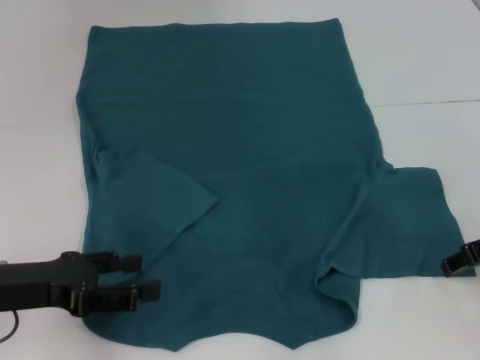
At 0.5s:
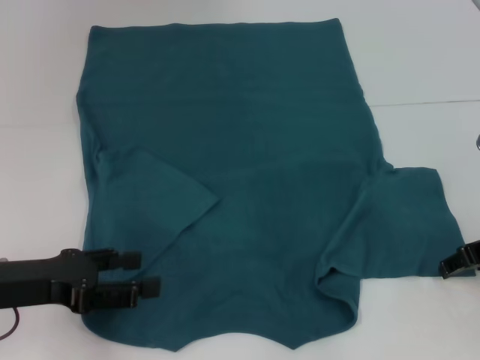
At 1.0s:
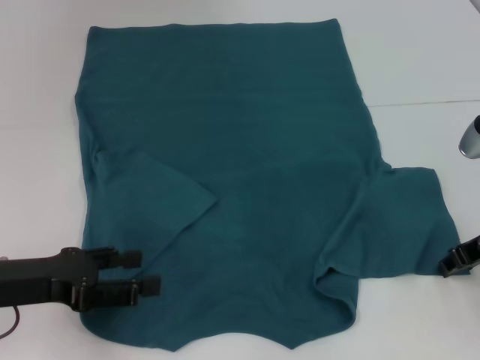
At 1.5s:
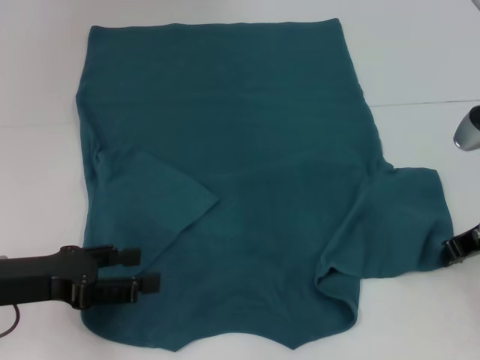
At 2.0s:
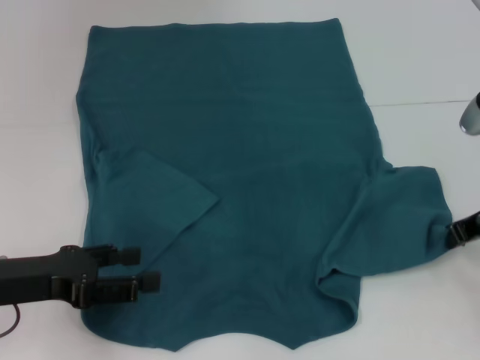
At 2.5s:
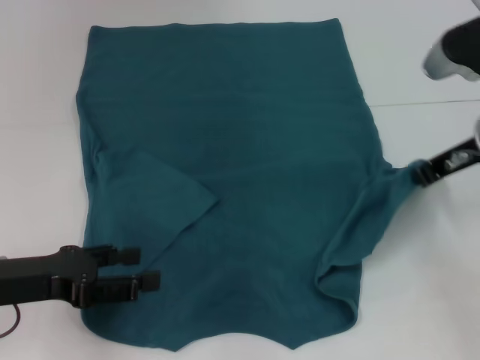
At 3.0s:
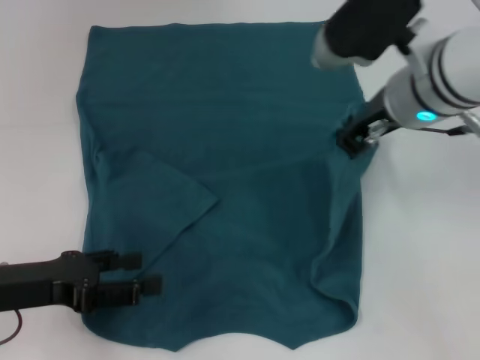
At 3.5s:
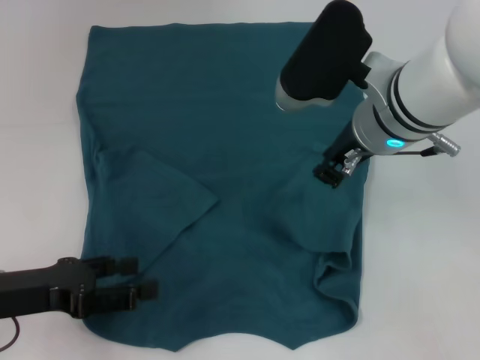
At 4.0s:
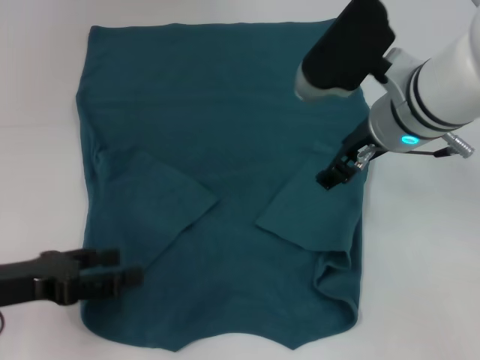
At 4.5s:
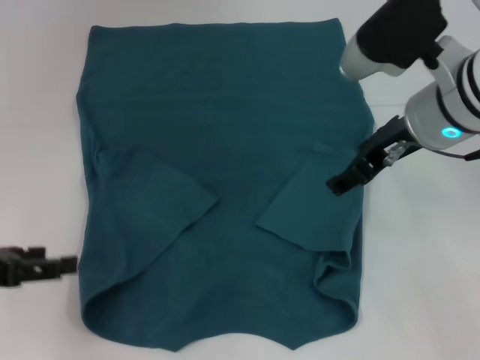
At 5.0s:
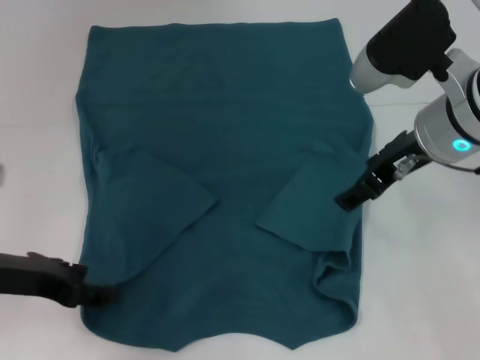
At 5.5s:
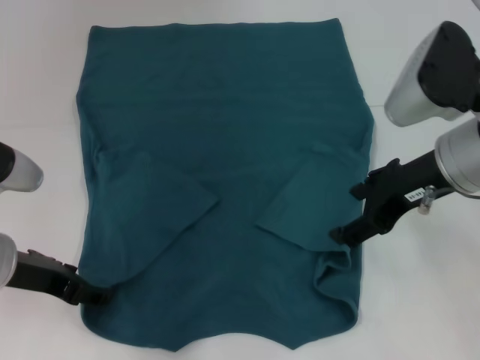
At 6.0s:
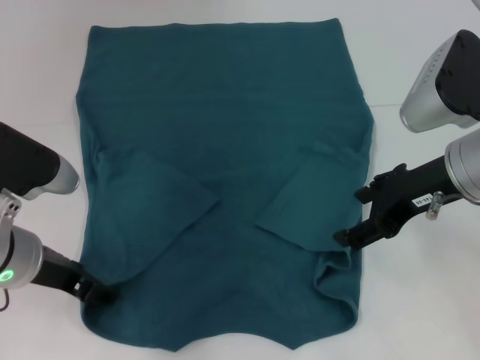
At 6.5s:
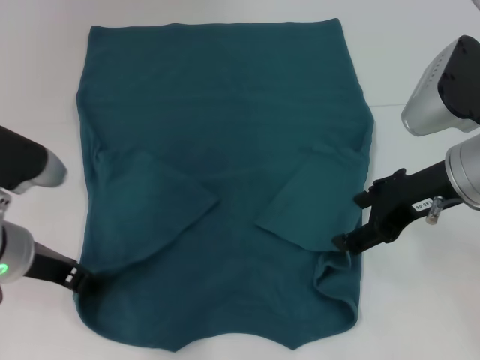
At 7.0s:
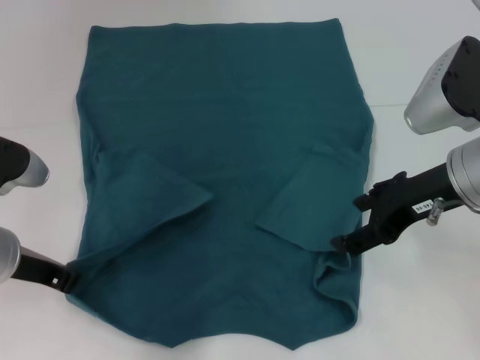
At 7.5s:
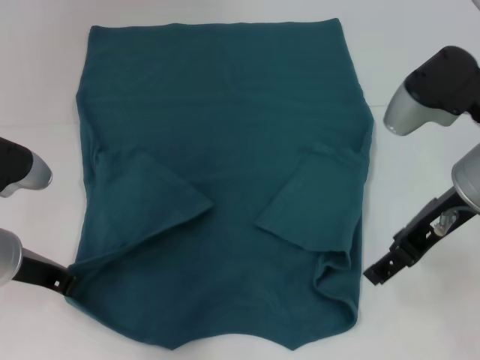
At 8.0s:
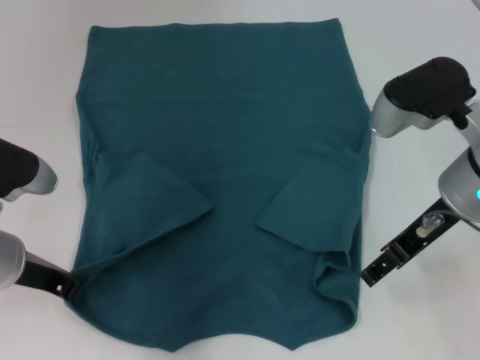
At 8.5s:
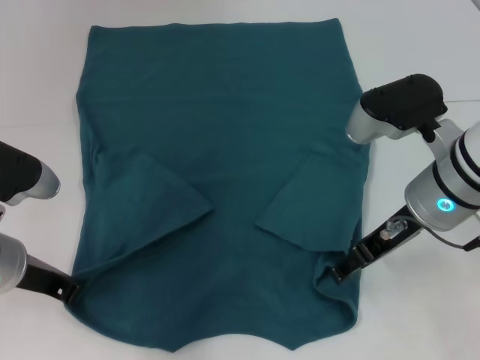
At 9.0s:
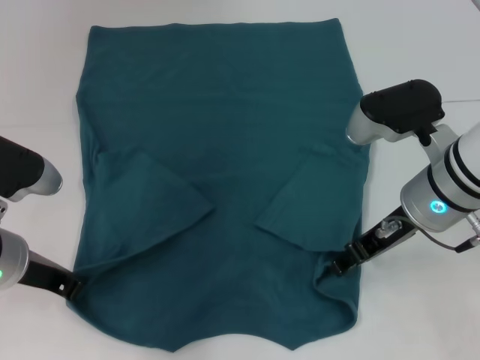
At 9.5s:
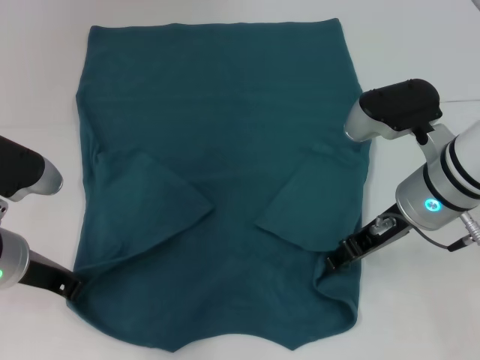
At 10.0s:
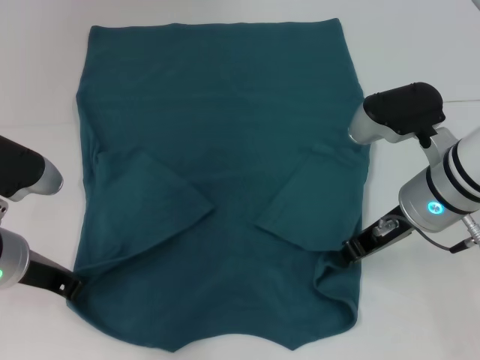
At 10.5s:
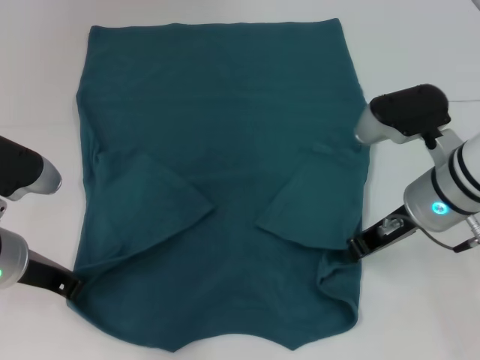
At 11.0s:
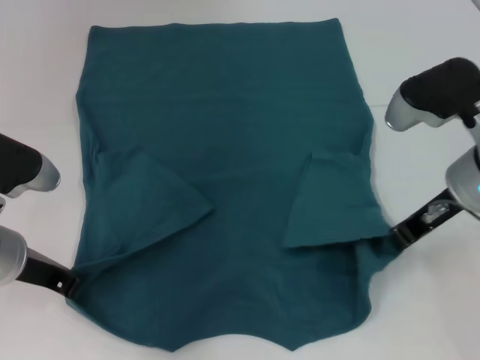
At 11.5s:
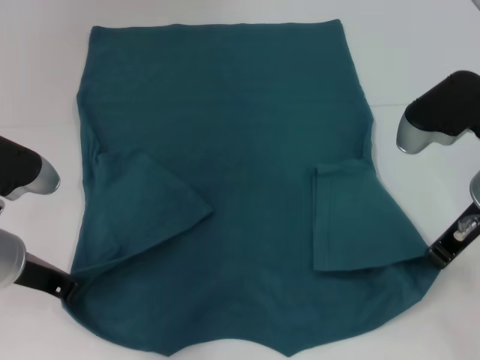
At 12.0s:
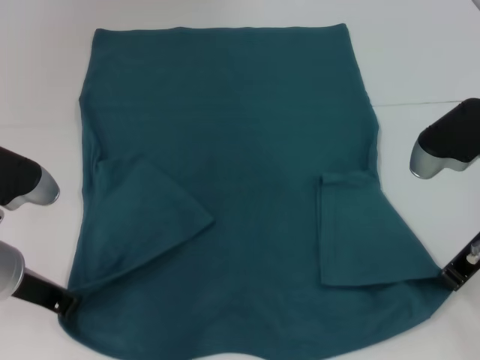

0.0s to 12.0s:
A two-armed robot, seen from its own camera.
Step, 0.0s to 3.5s: Fold the bottom right sleeve to the right.
Step, 4.0s to 7.0s: Grab the bottom left corner with your left hand.
Step, 7.5s to 10.5s: Grab the bottom right corner with your right hand.
0.0s to 2.0s: The right gripper closes.
2.0s to 4.0s: The right gripper moves to the left and upward, some 15 cm, and opens.
4.0s to 6.0s: Both grippers travel together to the right, approximately 10 cm.
6.0s to 8.0s: The left gripper closes.
8.0s to 10.0s: The right gripper shifts about 5 cm downward, and closes its fingers.
10.0s to 12.0s: The right gripper moves to the right, about 5 cm, and closes up.

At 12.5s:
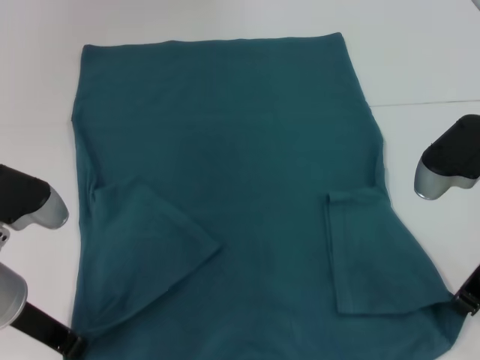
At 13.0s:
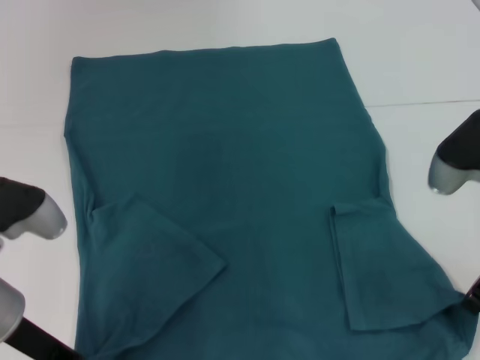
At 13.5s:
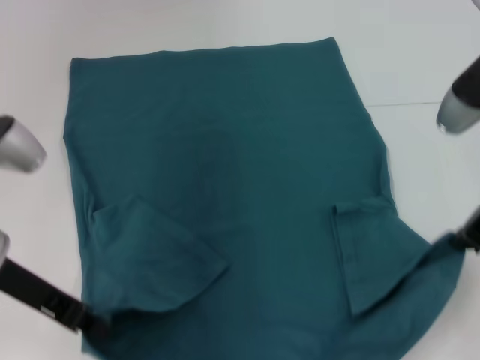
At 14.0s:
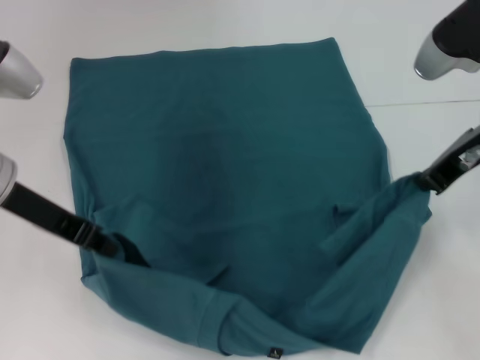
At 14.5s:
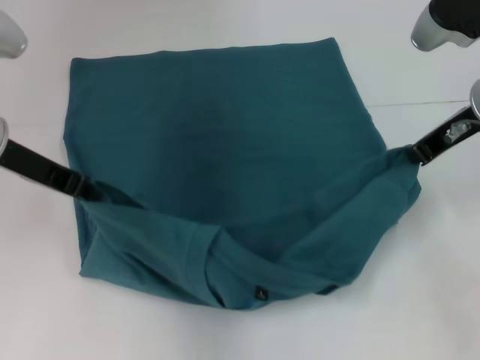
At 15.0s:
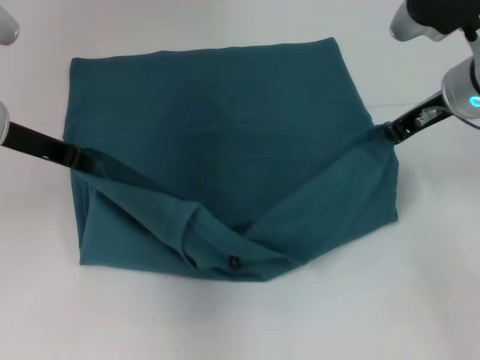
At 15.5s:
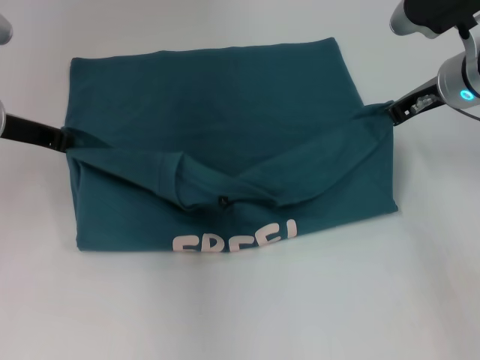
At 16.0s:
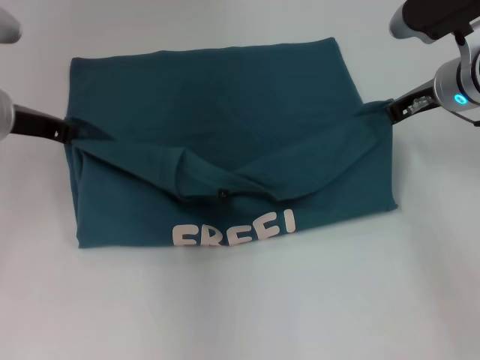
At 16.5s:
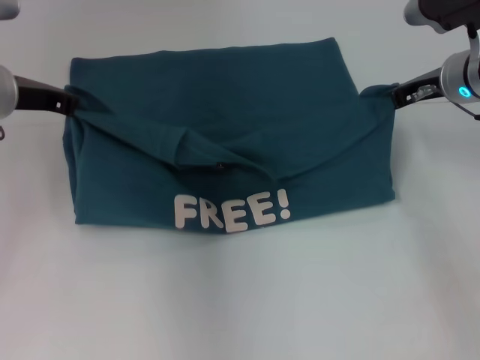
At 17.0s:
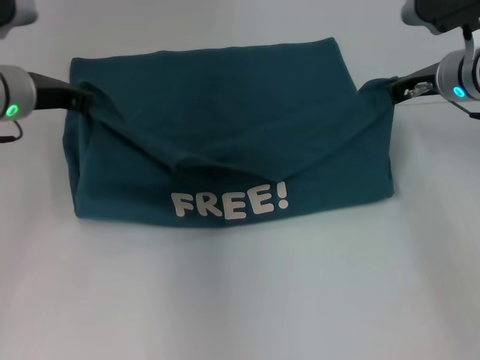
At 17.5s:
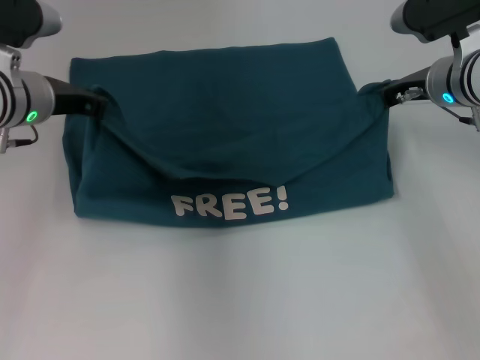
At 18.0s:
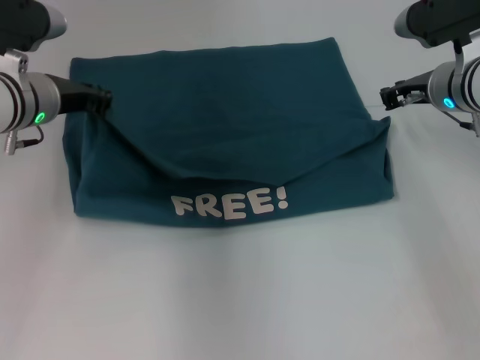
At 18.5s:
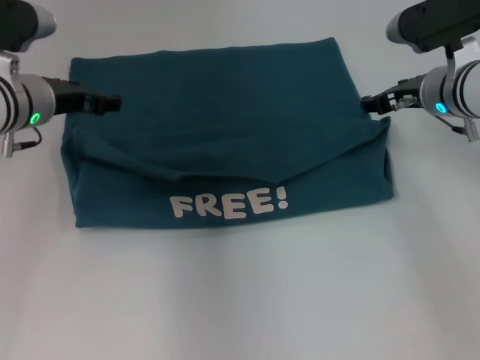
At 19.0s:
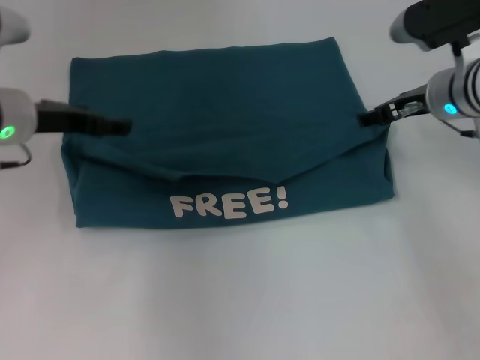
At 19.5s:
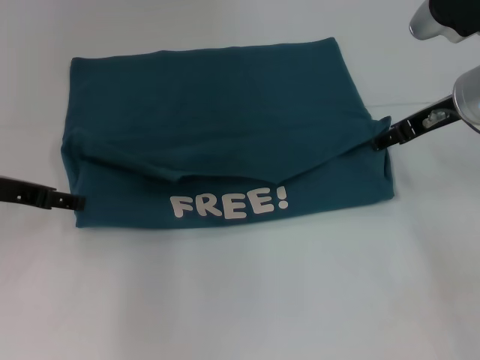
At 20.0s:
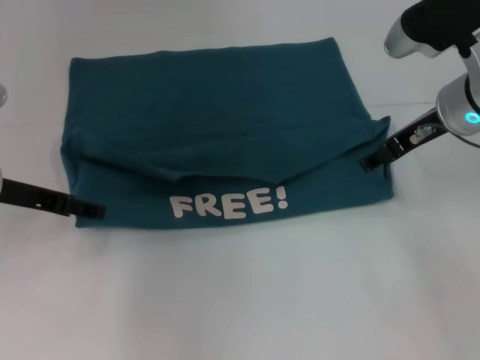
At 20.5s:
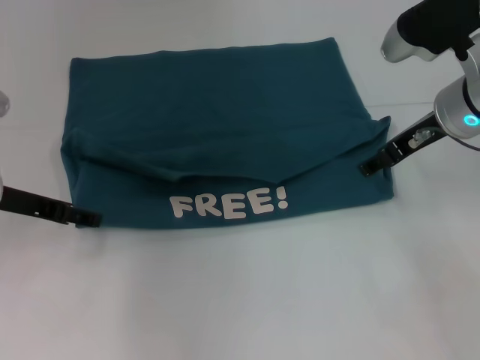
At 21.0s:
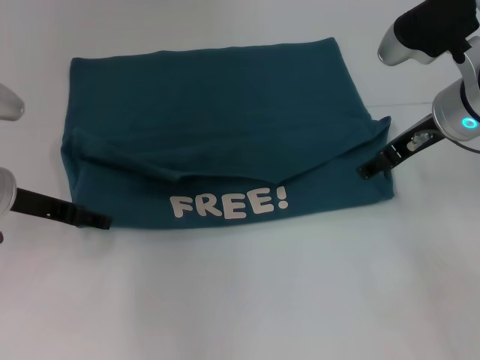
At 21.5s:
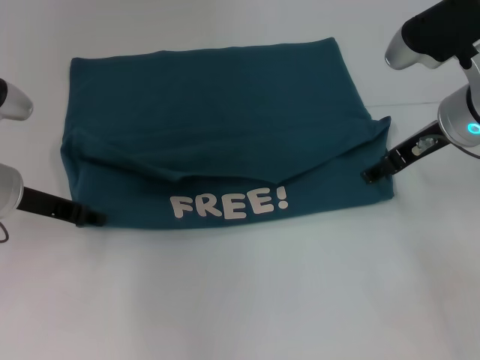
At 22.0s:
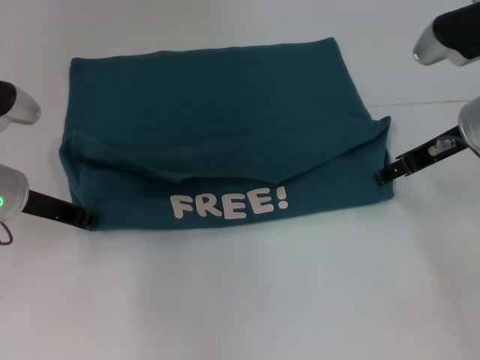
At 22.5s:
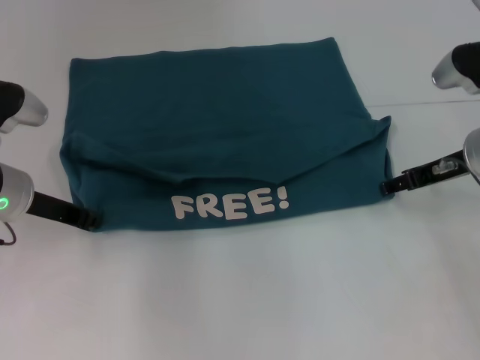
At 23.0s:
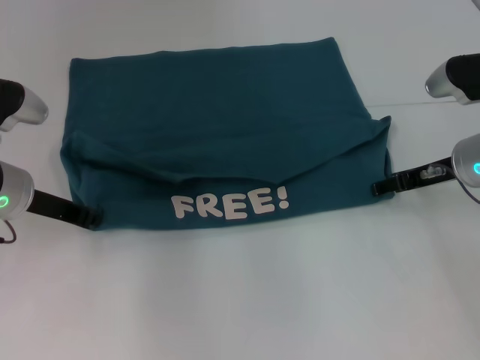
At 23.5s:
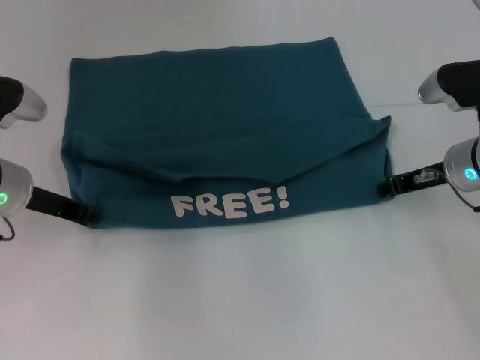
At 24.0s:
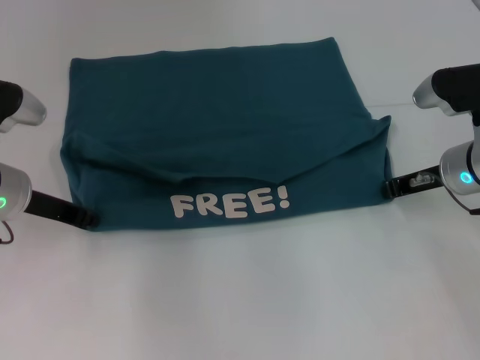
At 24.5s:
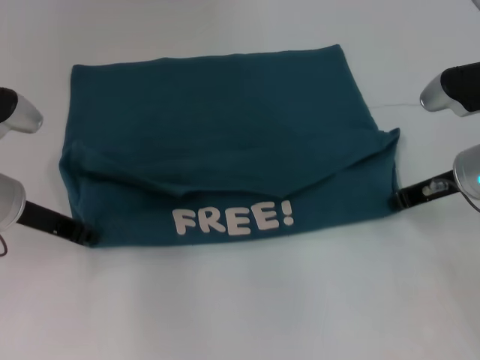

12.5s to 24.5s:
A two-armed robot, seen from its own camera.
Step, 12.5s to 18.0s: Fold the clothes to the left.
Step, 12.5s to 18.0s: Fold the clothes to the right.
12.5s to 14.5s: The left gripper goes approximately 15 cm upward and forward; the right gripper heads forward and upward, covering some 10 cm.
14.5s to 16.5s: The two grippers go approximately 5 cm forward.
16.5s to 18.5s: The right gripper opens. Meanwhile the left gripper opens up.
18.5s to 20.5s: The left gripper moves backward and to the left, approximately 10 cm. The right gripper shifts approximately 5 cm backward.
20.5s to 22.5s: The right gripper moves downward, approximately 5 cm. Meanwhile the left gripper closes up.
22.5s to 24.5s: The right gripper closes.

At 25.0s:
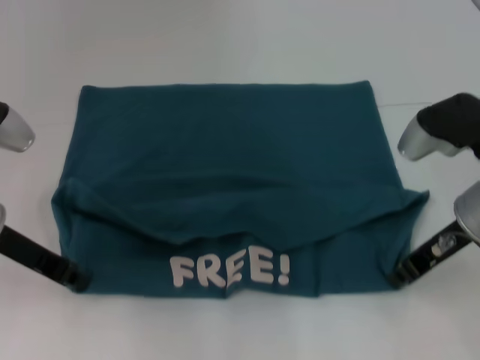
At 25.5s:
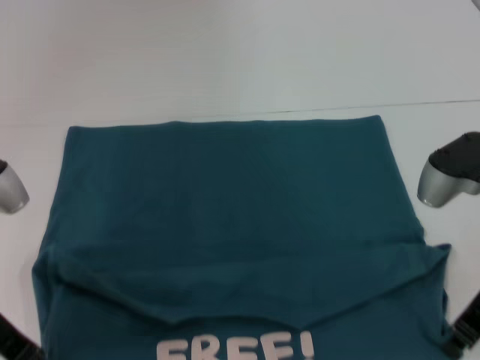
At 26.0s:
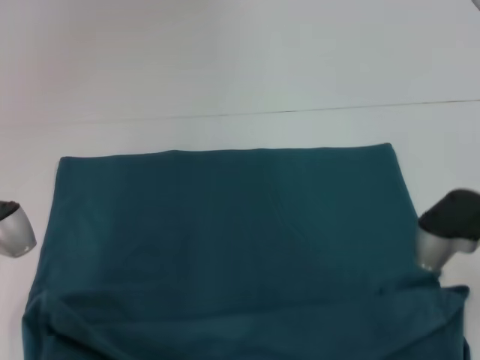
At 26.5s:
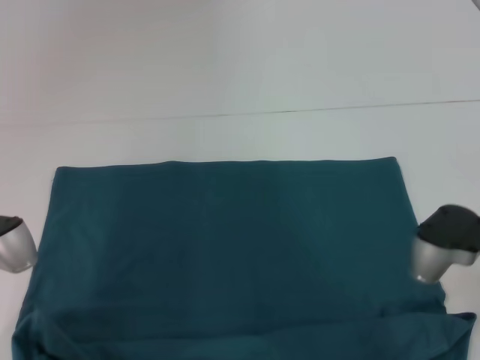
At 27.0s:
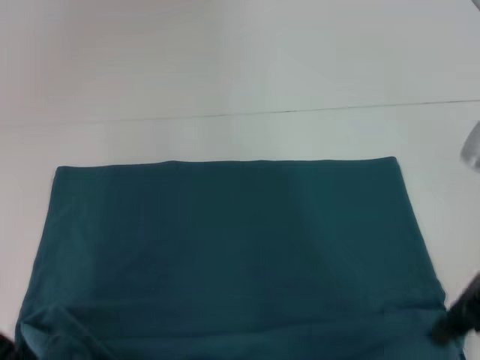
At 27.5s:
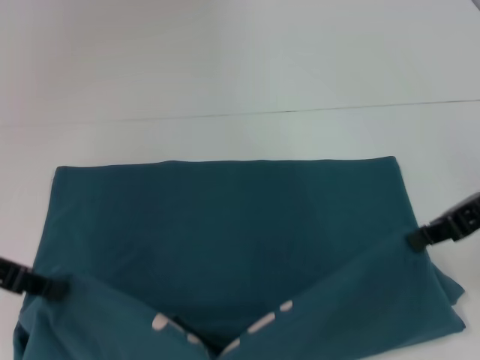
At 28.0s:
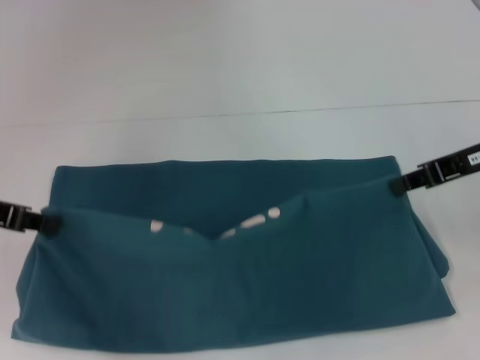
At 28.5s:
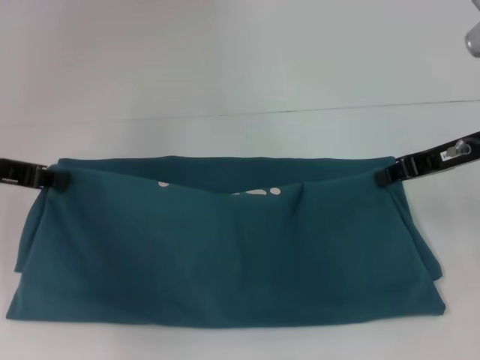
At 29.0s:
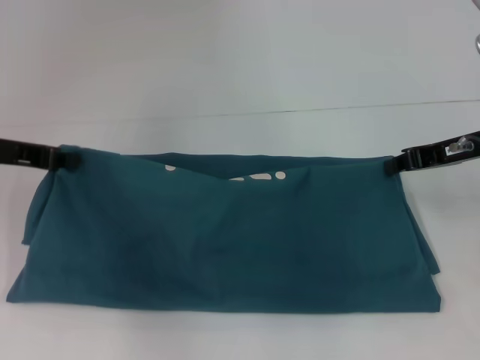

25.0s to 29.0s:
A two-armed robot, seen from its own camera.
25.0s to 27.0s: The right gripper shifts by approximately 5 cm. The left gripper heads backward, covering about 5 cm.
27.0s to 29.0s: The two grippers go roughly 10 cm forward.
